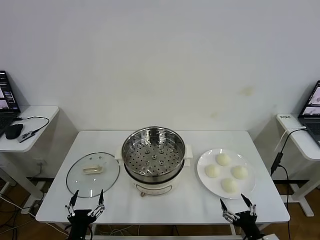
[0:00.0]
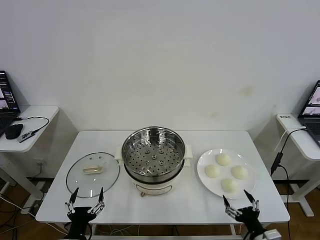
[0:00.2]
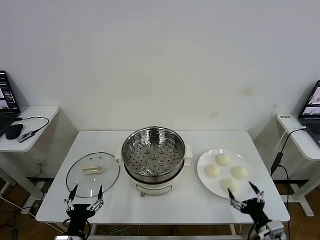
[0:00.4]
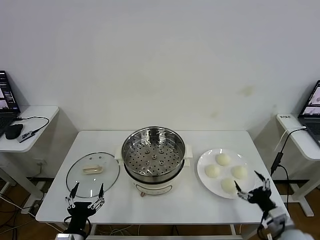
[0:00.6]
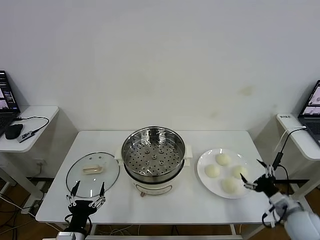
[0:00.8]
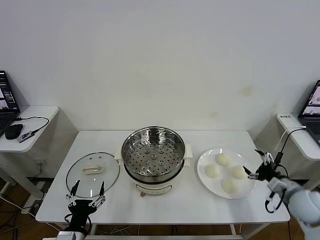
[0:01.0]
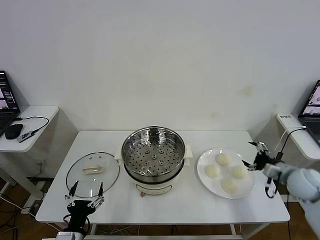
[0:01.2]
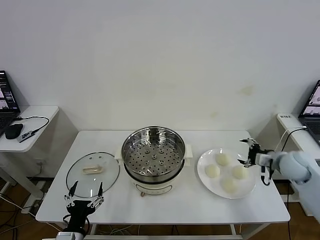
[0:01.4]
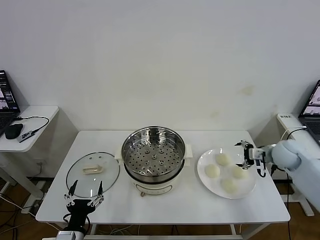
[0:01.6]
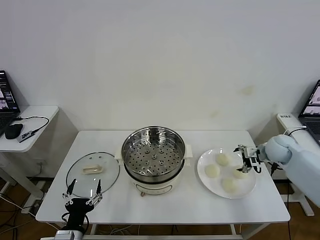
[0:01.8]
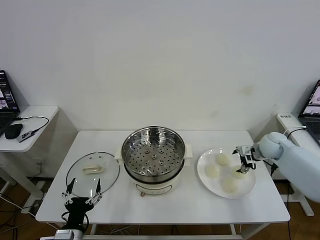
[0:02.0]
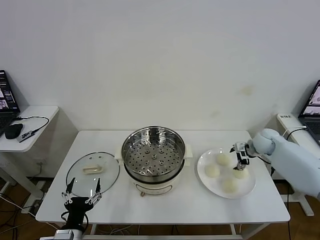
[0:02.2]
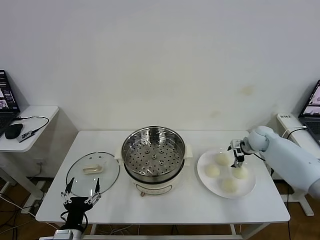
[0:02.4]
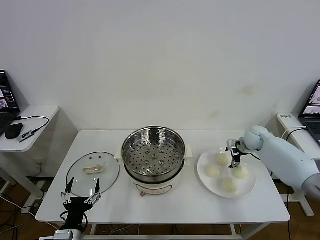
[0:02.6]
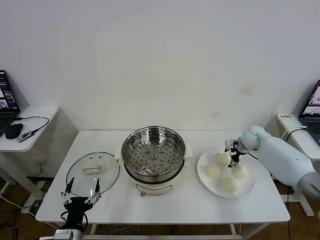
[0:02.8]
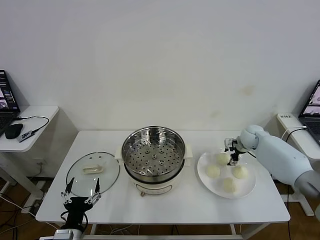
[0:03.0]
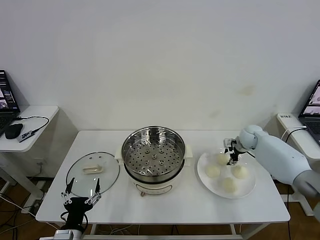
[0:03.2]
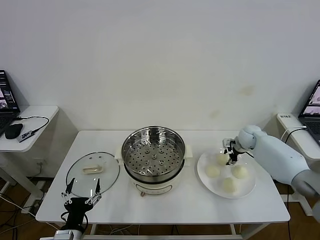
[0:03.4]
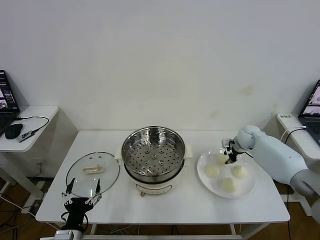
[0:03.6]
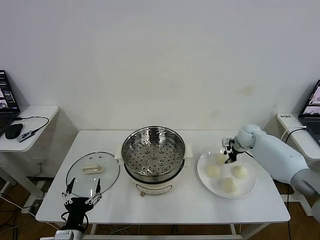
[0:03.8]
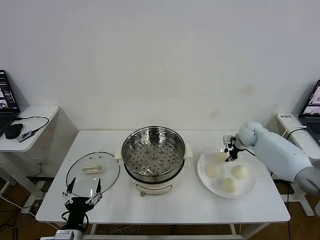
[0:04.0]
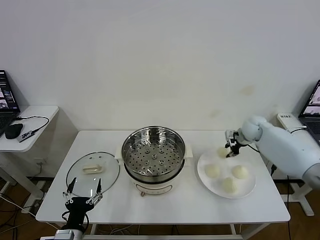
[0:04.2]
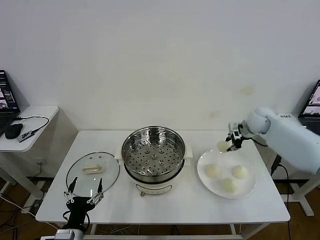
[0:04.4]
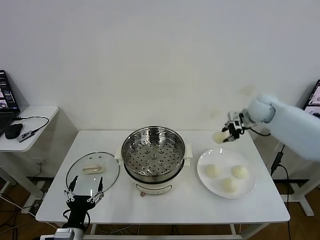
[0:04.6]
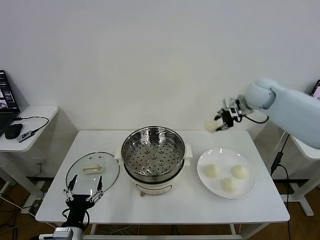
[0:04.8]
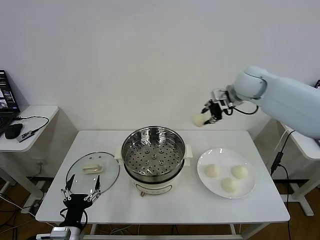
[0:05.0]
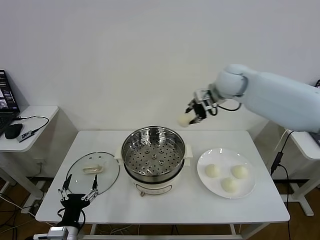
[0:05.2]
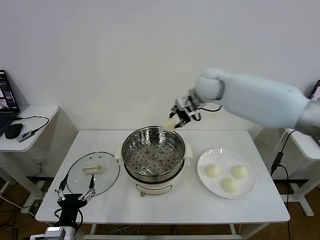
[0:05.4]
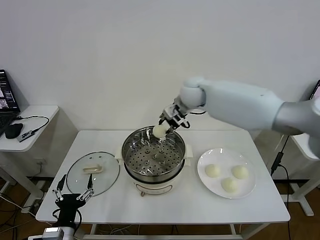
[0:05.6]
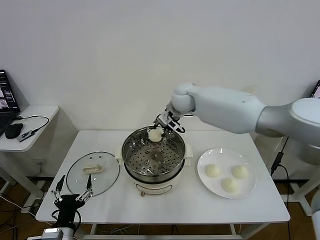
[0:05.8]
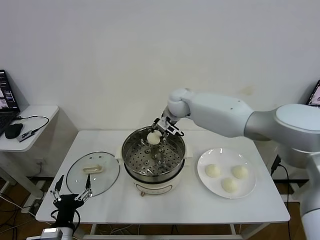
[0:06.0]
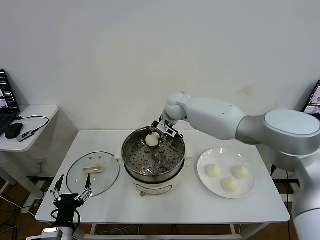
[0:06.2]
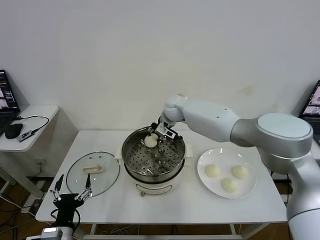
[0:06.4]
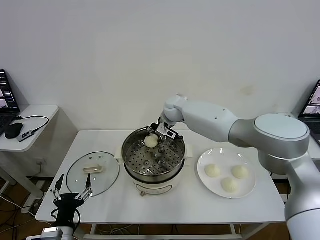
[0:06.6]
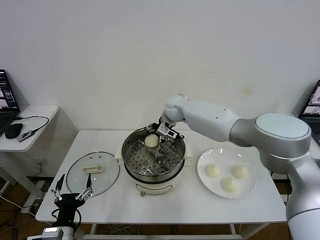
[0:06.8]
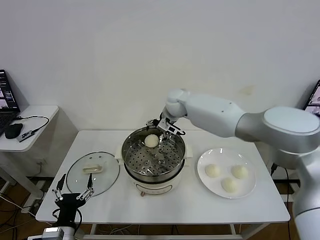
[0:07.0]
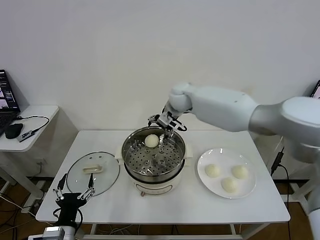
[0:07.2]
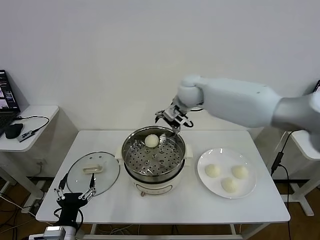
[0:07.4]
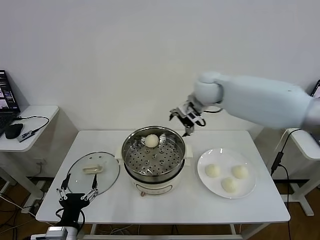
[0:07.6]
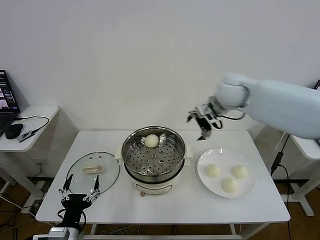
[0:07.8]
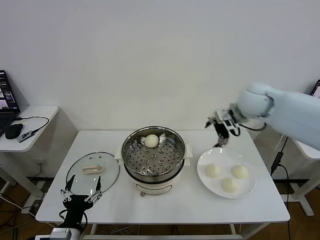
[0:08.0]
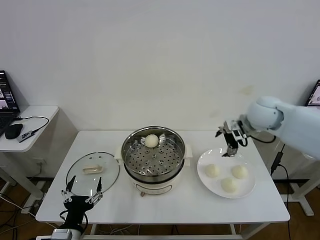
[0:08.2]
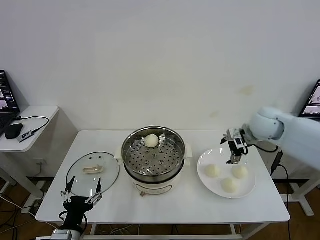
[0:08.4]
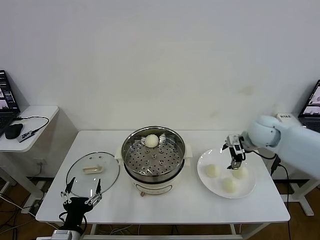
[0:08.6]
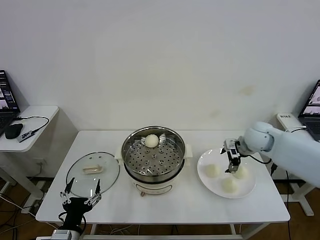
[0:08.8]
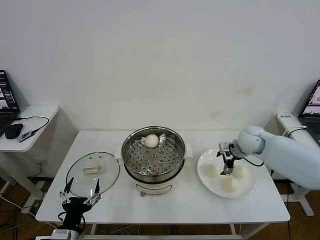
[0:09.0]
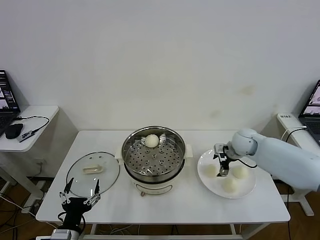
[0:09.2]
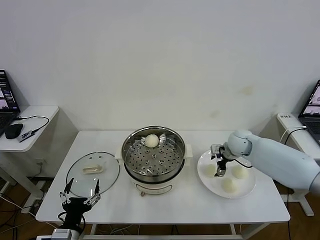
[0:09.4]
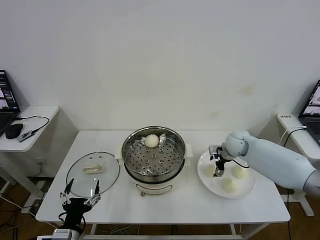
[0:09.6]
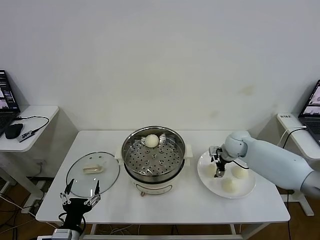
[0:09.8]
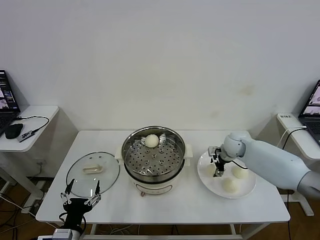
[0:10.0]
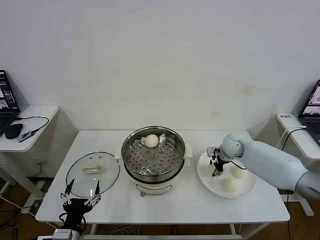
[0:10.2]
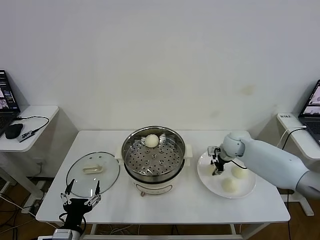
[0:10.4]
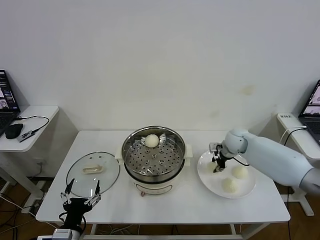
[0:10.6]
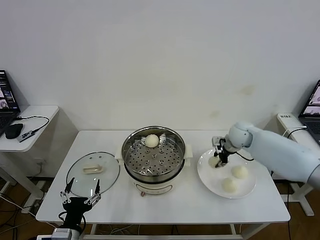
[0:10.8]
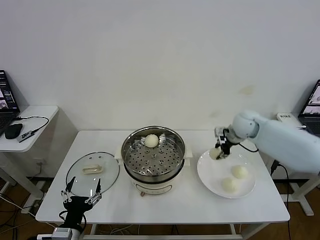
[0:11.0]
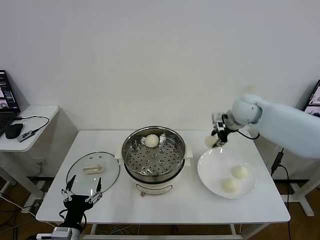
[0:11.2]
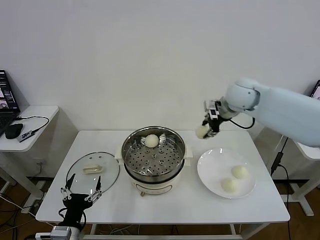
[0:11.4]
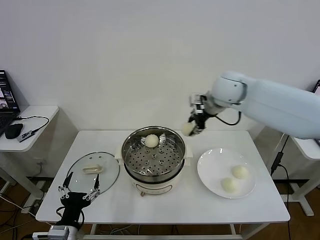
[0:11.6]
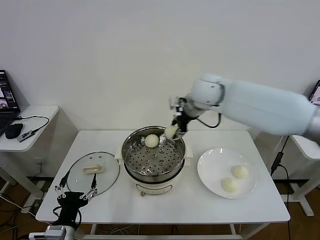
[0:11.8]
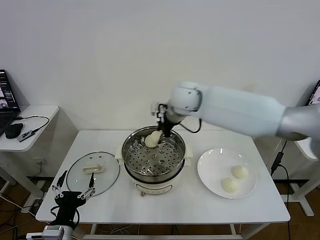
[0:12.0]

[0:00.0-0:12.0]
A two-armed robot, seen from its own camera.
Task of the whole recording: take steamed baozi put them in steamer then cover it.
Step, 0:00.0 to 0:03.4: Grasp the baozi in the plate with right gripper.
Step, 0:03.6 to 0:06.6: Place the baozi on the steamer with right gripper.
Step, 0:06.8 to 0:10.4: Grasp the baozi in the plate with right gripper.
0:01.6 to 0:03.0: The right gripper goes approximately 15 cm forward, to the left and downward, and closes its fingers.
0:03.0 to 0:04.4: The right gripper moves upward, approximately 10 cm, and closes its fingers.
0:04.4 to 0:06.0: The right gripper goes about 30 cm to the left.
0:06.0 to 0:07.6: The right gripper shifts roughly 15 cm to the right and upward, and opens up.
0:07.6 to 0:09.0: The right gripper moves downward and to the right, some 25 cm.
0:09.0 to 0:10.4: The right gripper goes about 5 cm downward, and closes up.
0:10.4 to 0:12.0: The right gripper travels to the left and upward by roughly 30 cm.

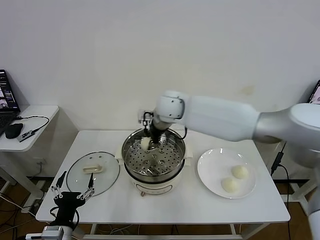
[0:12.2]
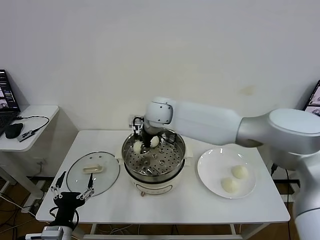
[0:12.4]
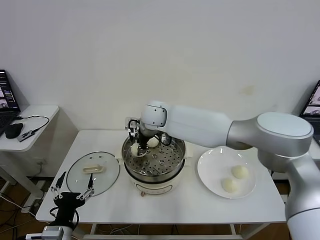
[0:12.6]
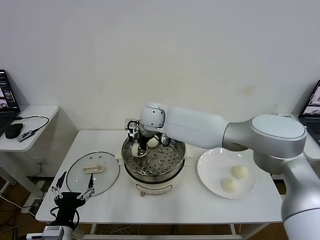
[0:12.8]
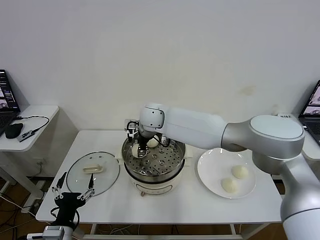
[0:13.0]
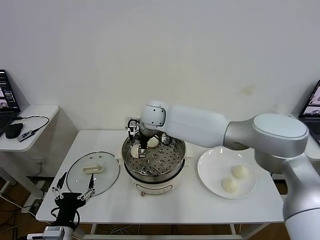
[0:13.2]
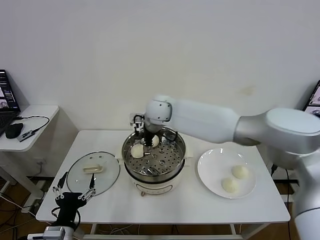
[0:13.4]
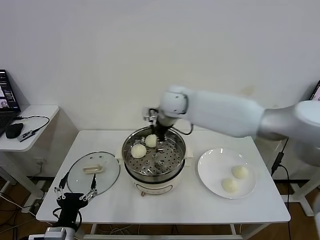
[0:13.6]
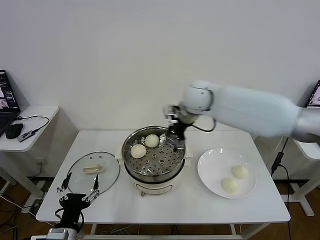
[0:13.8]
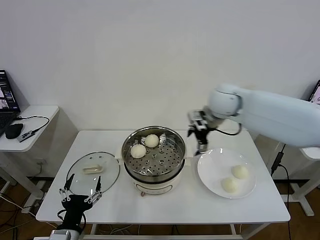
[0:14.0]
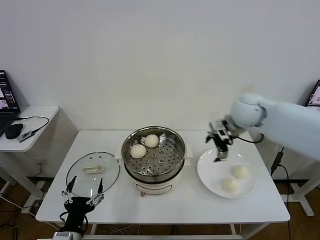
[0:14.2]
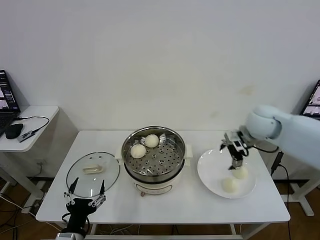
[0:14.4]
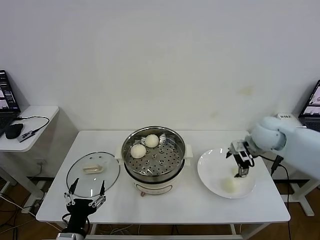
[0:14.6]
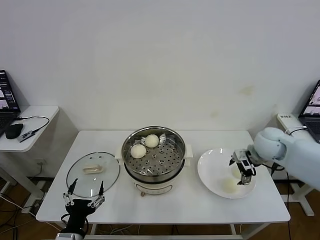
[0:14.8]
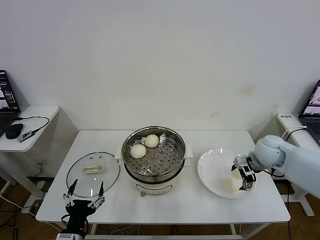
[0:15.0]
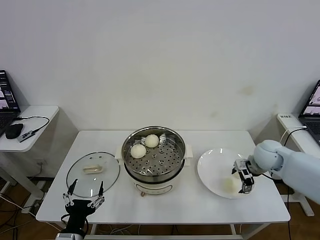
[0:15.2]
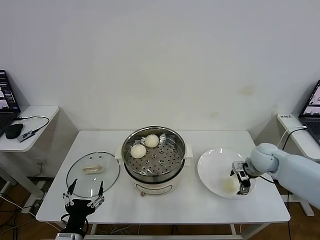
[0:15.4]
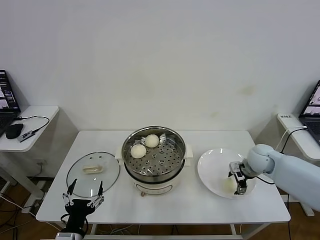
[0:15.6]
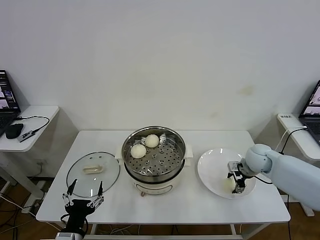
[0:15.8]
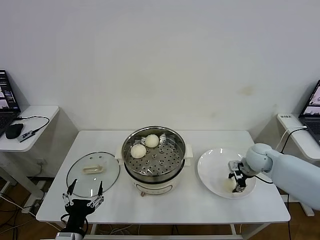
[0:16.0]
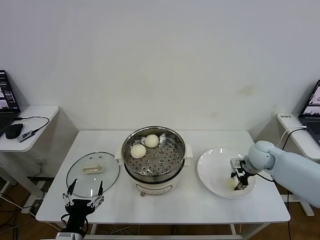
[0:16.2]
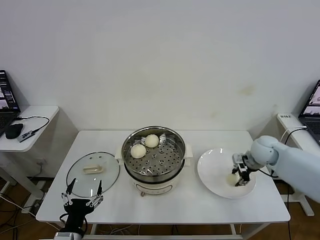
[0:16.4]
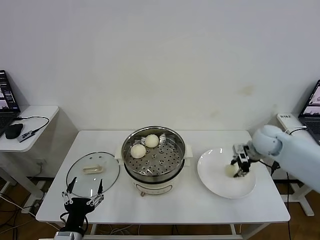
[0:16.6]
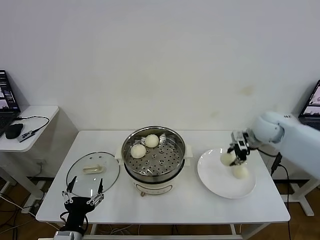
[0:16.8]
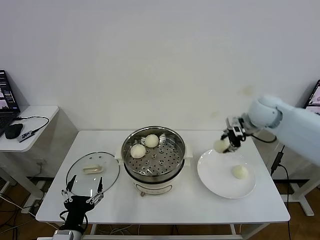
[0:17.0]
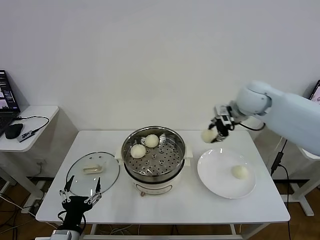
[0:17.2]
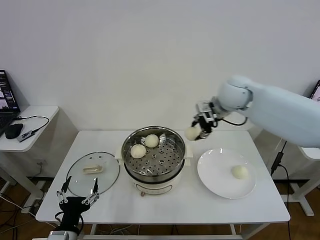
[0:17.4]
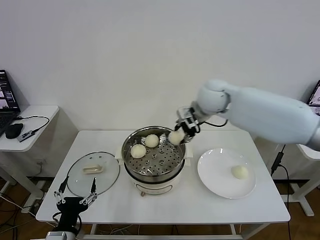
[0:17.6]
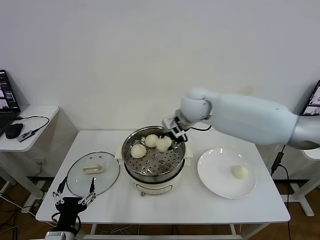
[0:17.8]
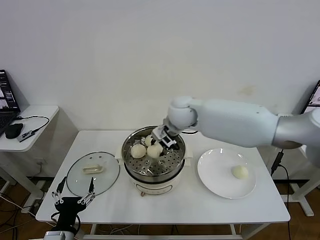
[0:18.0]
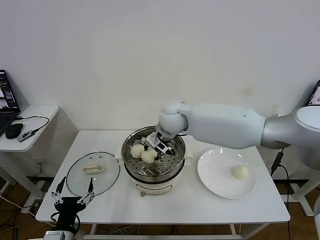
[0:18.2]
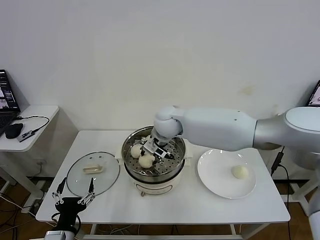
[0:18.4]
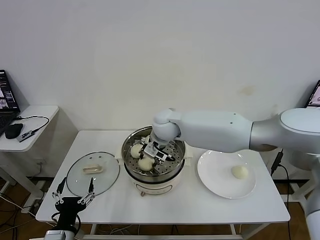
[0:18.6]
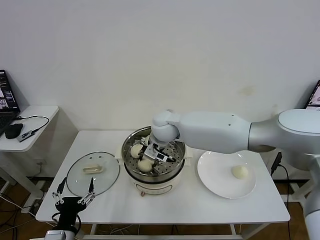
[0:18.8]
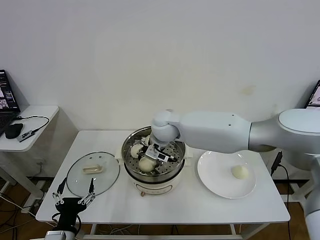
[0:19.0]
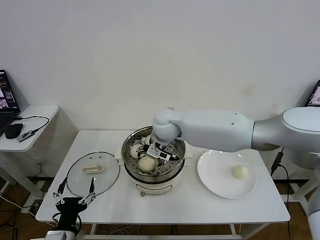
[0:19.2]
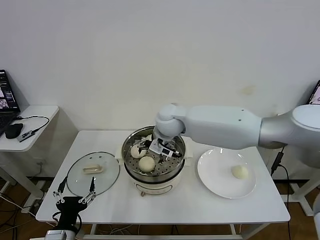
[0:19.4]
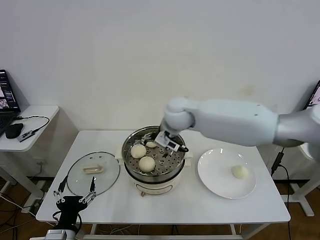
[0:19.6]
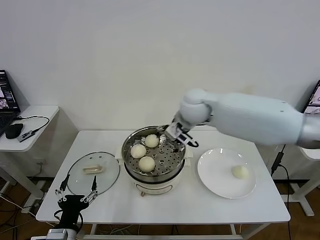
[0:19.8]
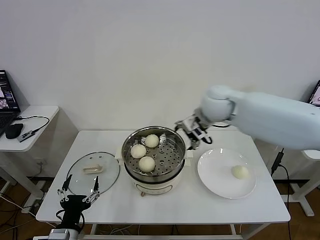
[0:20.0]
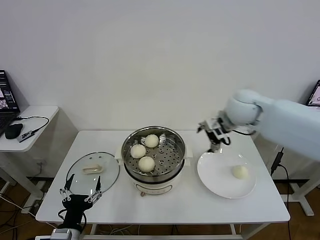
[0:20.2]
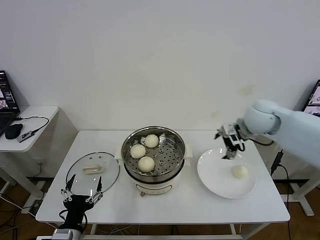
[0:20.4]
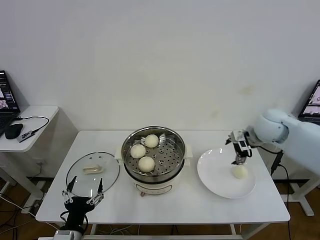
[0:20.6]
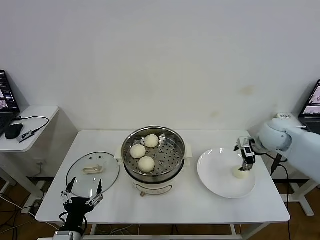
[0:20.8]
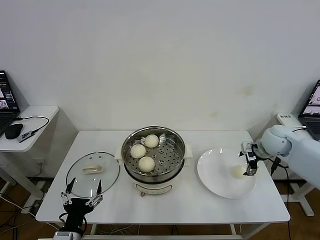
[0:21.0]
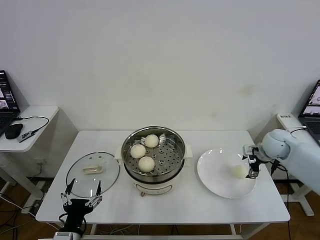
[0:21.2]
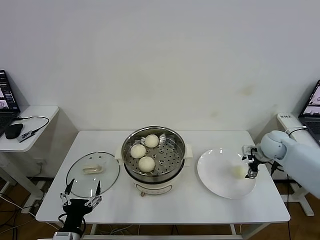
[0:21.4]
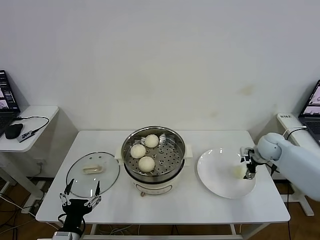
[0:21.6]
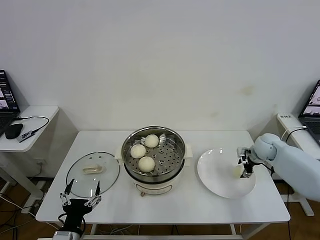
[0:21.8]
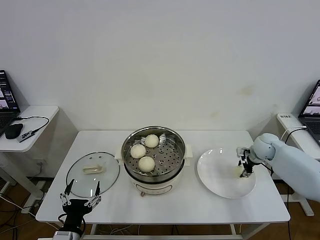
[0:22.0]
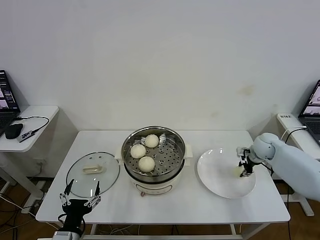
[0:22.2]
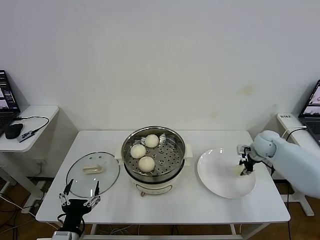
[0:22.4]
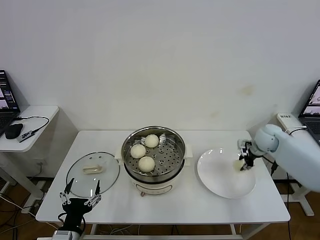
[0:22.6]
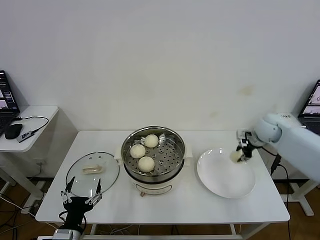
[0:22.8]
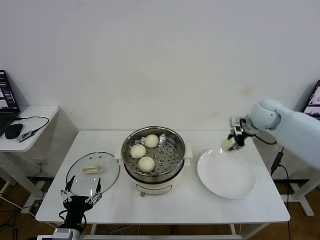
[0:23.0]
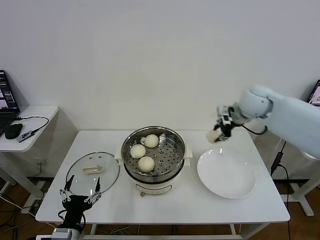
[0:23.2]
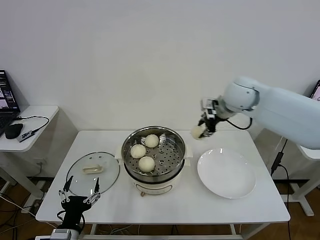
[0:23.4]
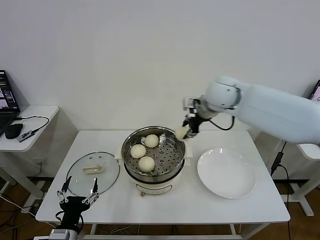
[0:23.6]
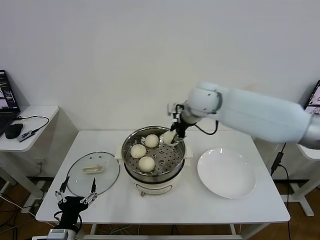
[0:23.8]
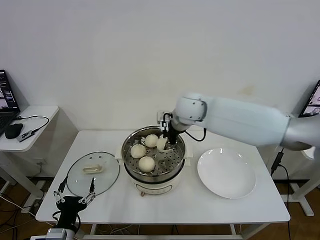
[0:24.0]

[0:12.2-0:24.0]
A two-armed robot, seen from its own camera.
Task of the whole recording: take steamed baozi put them in steamer then cover it.
Step, 0:13.2 to 0:16.0: Grasp the baozi in the plate with right gripper.
Step, 0:16.2 to 0:19.0: Place the baozi on the steamer with right gripper.
Step, 0:19.2 to 0:22.2: Grasp the baozi in the plate with right gripper.
0:12.2 to 0:13.6: The right gripper travels to the left and back again, some 5 cm each way, and opens its fingers.
0:13.6 to 0:15.2: The right gripper heads to the right and downward, covering approximately 35 cm.
0:15.2 to 0:16.6: The right gripper shifts by roughly 5 cm, and closes its fingers.
0:16.6 to 0:18.2: The right gripper travels to the left by approximately 30 cm.
0:18.2 to 0:19.6: The right gripper opens.
0:19.6 to 0:21.0: The right gripper travels to the right by some 35 cm.
0:21.0 to 0:22.6: The right gripper ends up about 5 cm from where it was, and closes.
0:22.6 to 0:24.0: The right gripper travels to the left and upward by approximately 35 cm.
